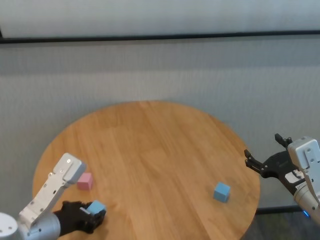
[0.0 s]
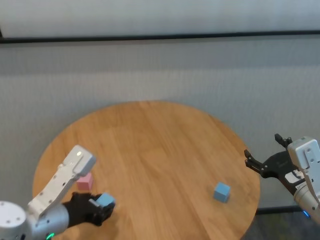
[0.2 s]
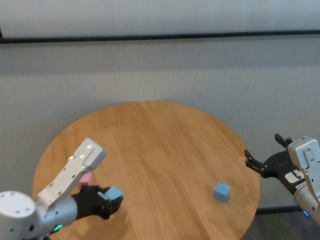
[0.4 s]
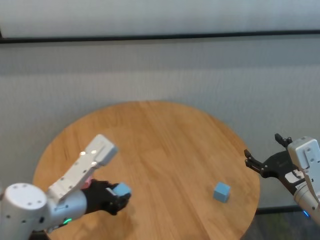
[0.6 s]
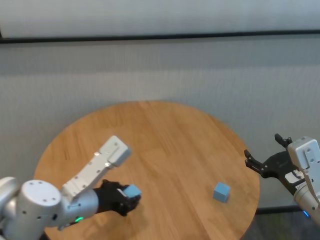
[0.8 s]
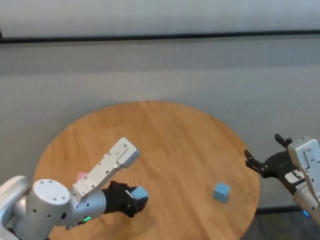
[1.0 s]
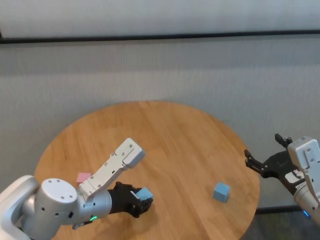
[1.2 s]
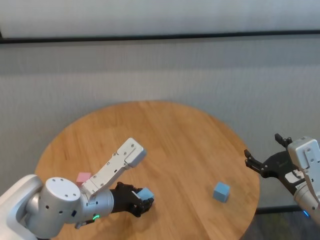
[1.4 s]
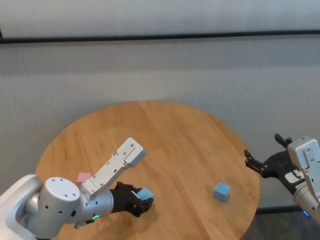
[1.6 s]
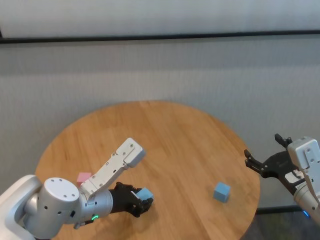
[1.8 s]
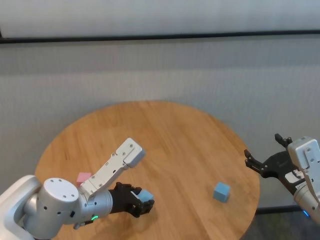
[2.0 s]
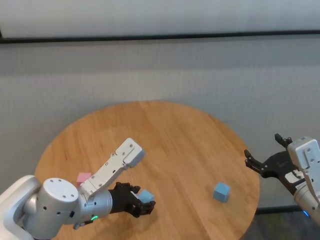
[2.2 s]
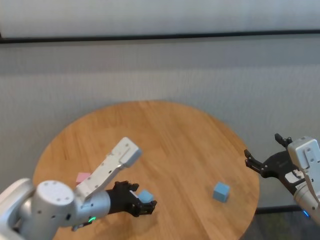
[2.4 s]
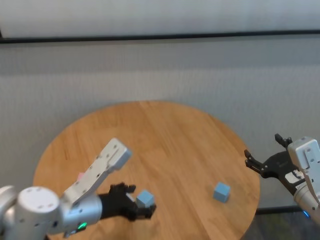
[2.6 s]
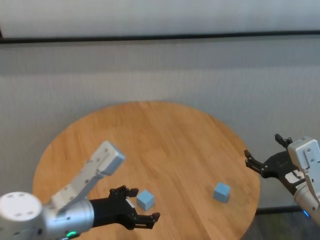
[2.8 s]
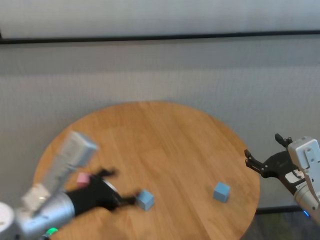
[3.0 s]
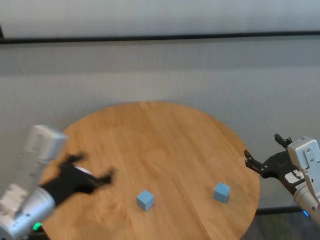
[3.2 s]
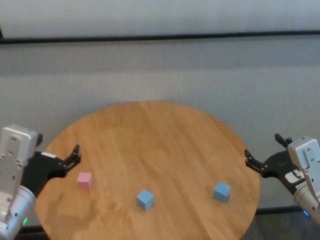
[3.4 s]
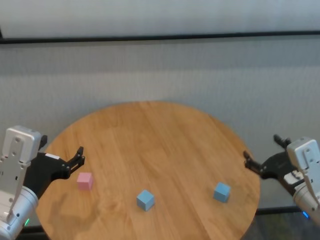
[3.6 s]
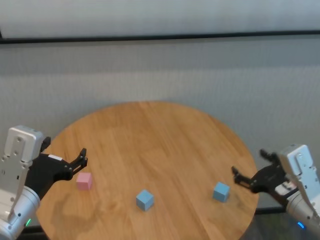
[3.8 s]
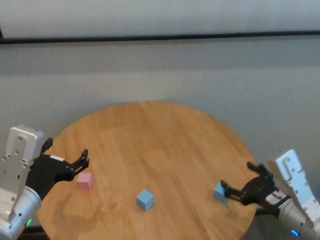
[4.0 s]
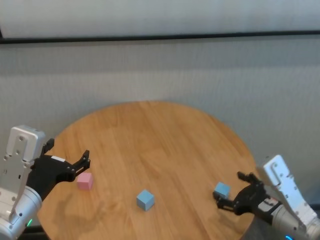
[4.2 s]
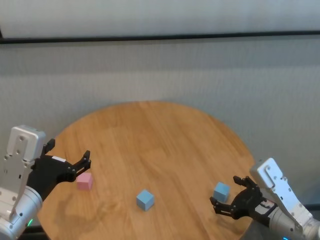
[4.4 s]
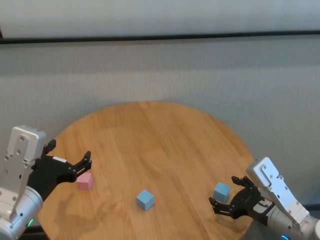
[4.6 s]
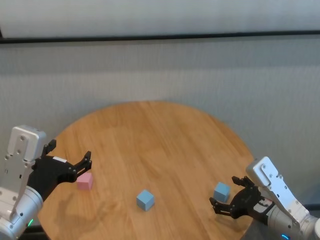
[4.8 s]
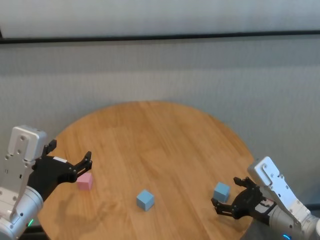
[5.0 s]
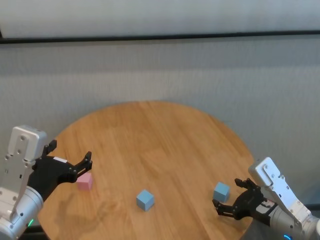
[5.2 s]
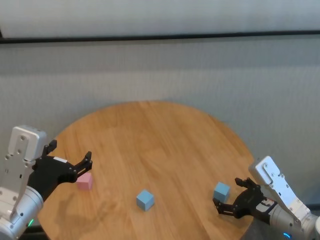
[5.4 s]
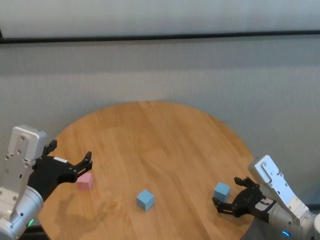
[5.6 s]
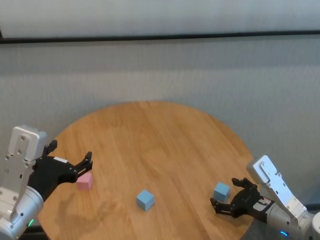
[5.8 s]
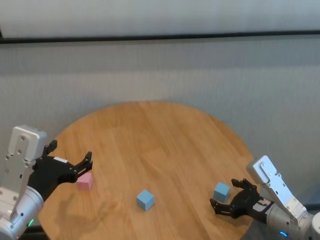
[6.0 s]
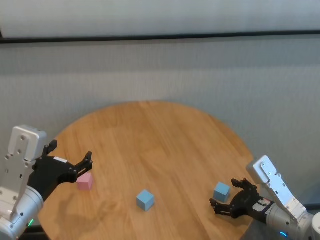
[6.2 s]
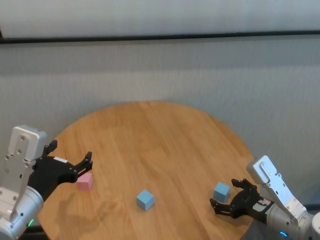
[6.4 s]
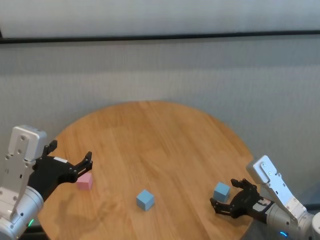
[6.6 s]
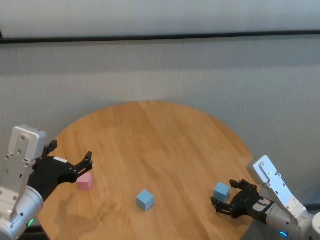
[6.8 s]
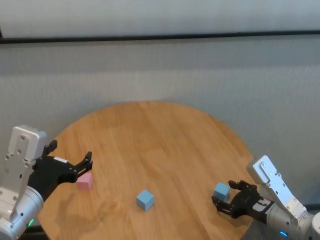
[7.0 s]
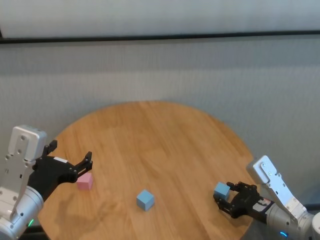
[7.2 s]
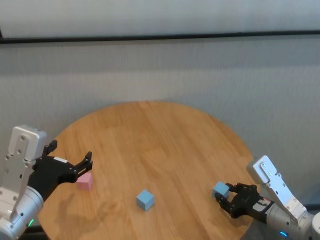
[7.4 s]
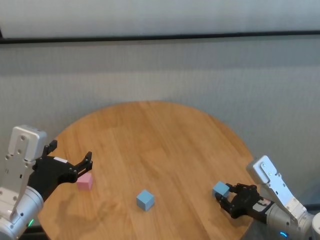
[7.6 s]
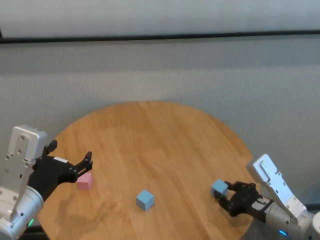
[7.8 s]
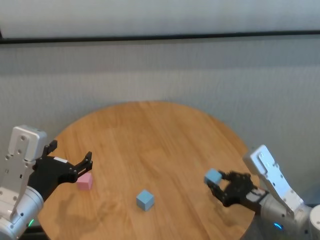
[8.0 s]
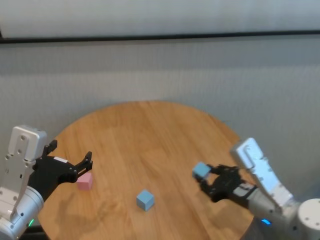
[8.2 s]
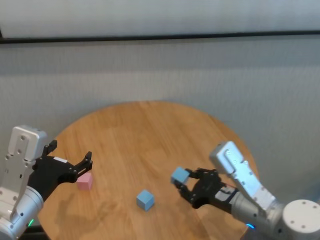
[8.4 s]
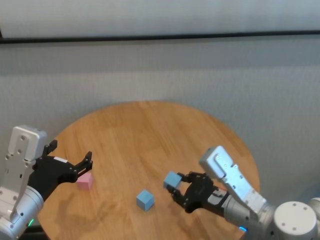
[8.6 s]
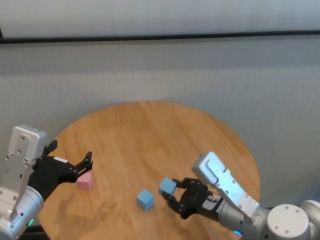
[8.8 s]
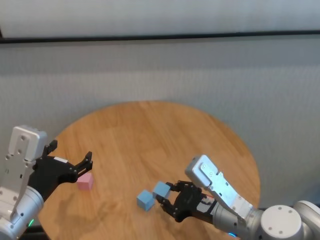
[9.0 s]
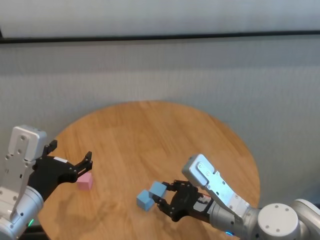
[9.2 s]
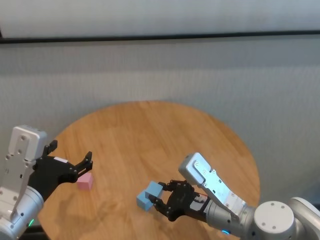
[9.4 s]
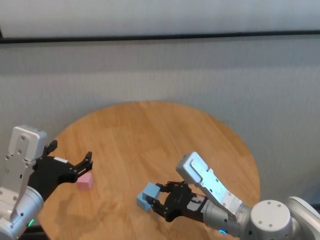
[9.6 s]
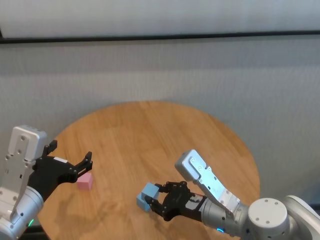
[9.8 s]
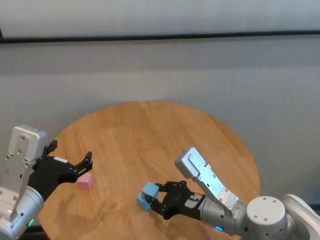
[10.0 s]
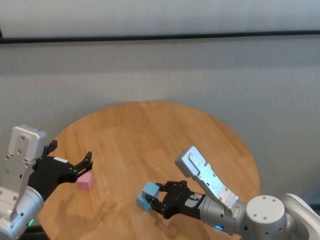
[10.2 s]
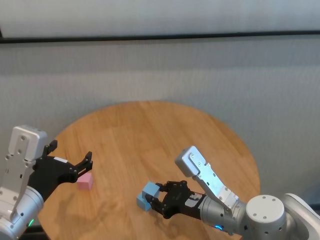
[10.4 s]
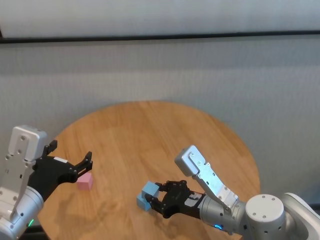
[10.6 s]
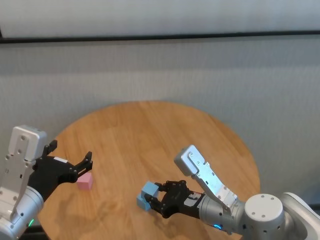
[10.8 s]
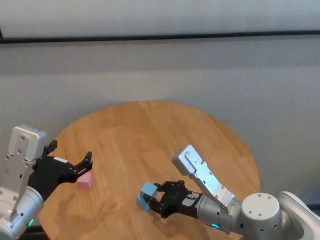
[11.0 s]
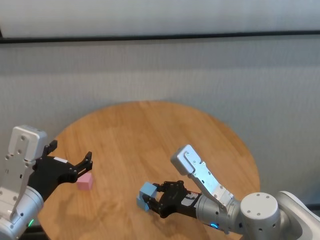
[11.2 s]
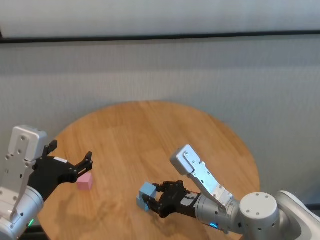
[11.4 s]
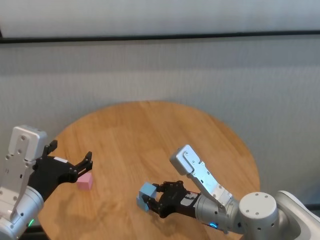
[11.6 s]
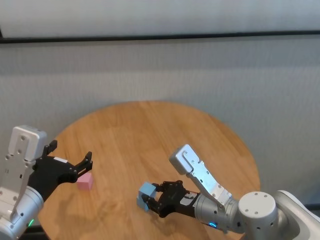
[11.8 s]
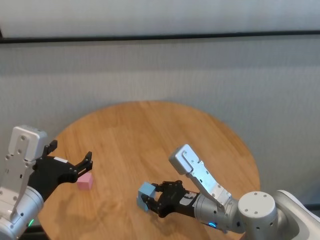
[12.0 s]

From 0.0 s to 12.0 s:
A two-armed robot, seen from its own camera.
Task of the whole recording: stack building blocks on the table.
Step, from 0.0 s to 2.2 s: Place the blue building block in the center of table with left gripper.
Step, from 2.4 s to 7.4 s: Grasp the blue building block with right gripper.

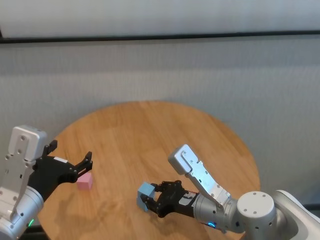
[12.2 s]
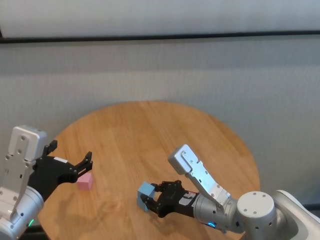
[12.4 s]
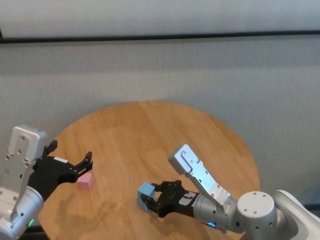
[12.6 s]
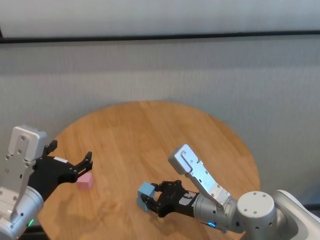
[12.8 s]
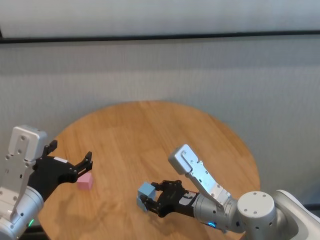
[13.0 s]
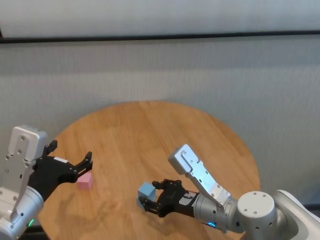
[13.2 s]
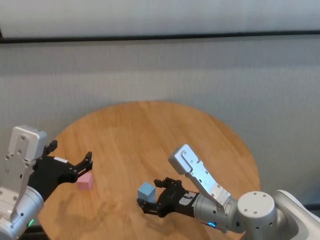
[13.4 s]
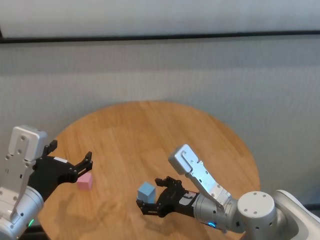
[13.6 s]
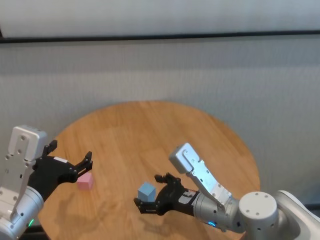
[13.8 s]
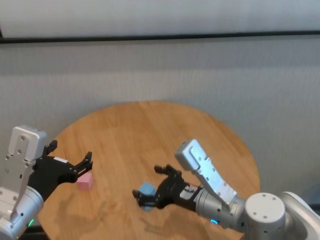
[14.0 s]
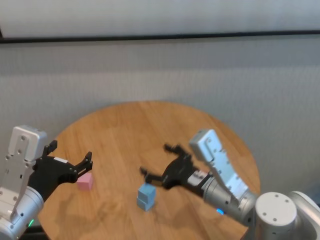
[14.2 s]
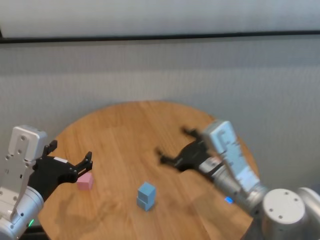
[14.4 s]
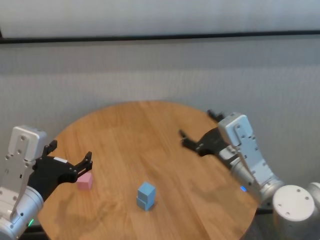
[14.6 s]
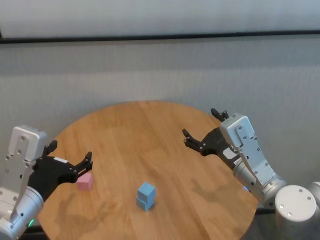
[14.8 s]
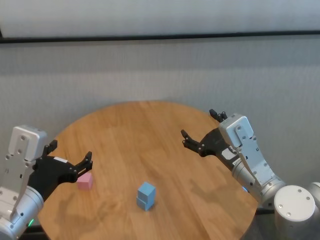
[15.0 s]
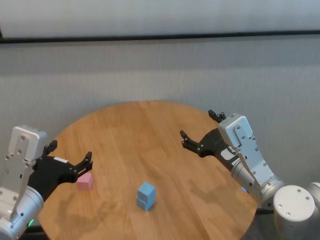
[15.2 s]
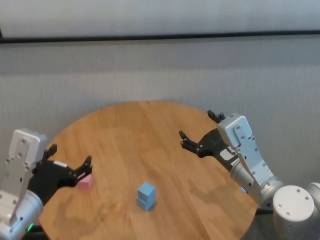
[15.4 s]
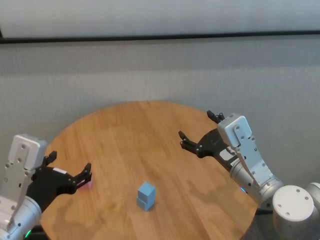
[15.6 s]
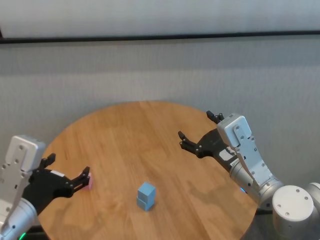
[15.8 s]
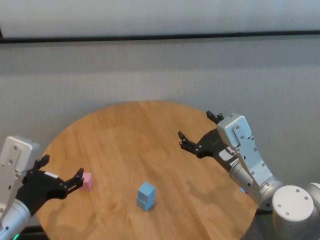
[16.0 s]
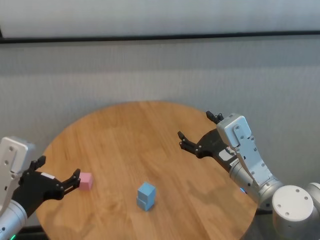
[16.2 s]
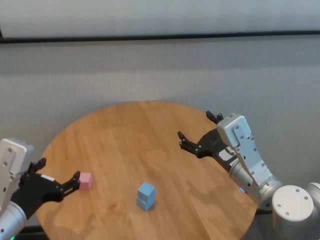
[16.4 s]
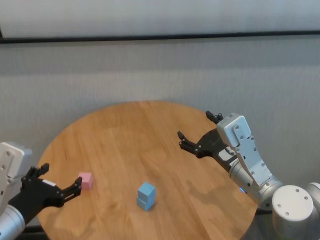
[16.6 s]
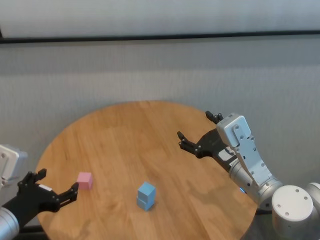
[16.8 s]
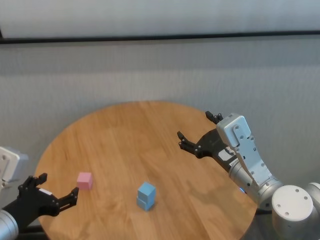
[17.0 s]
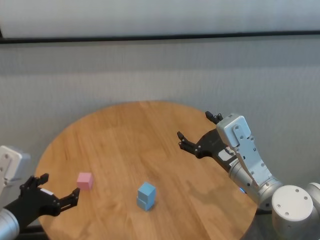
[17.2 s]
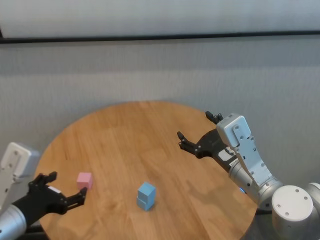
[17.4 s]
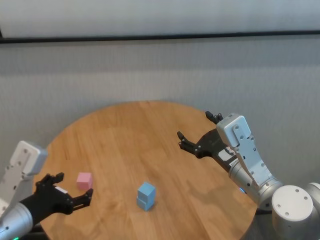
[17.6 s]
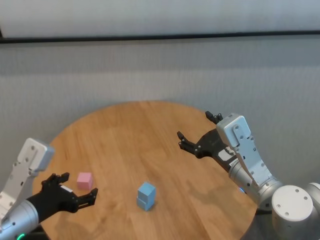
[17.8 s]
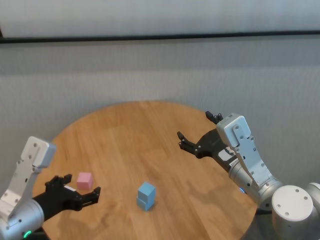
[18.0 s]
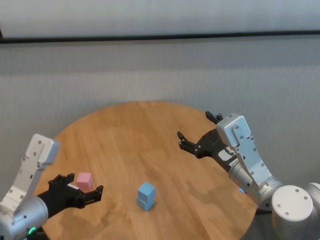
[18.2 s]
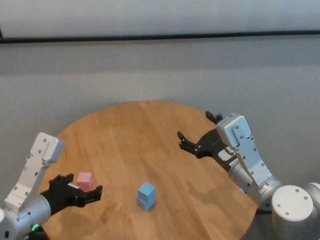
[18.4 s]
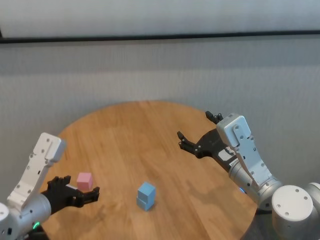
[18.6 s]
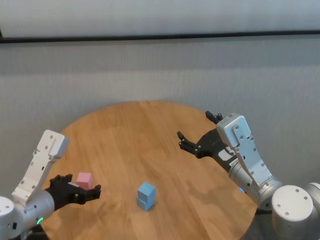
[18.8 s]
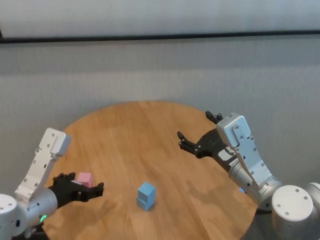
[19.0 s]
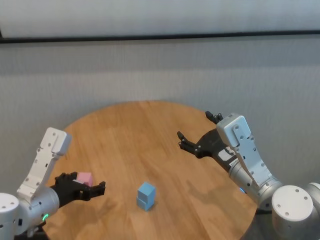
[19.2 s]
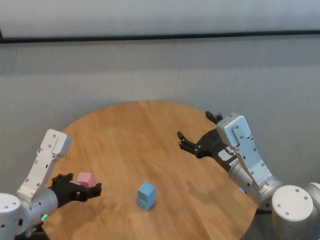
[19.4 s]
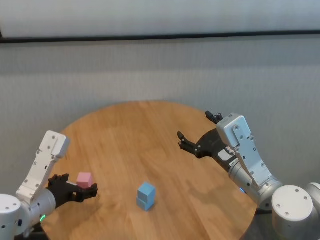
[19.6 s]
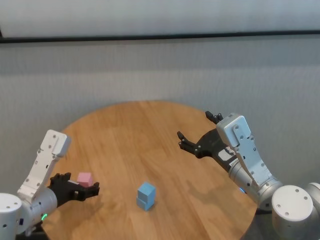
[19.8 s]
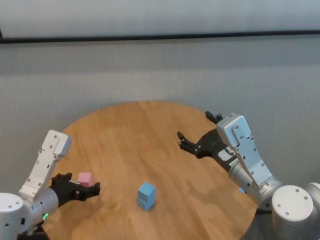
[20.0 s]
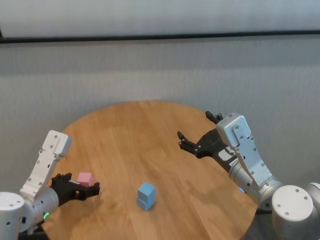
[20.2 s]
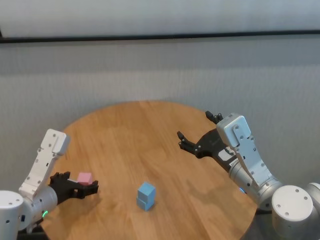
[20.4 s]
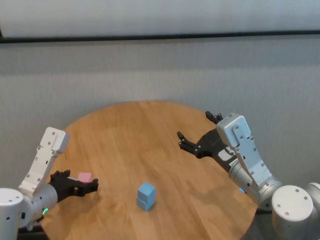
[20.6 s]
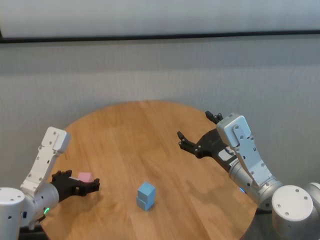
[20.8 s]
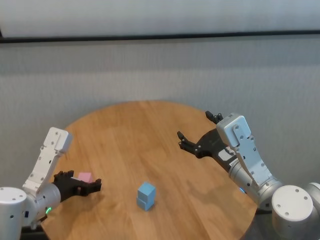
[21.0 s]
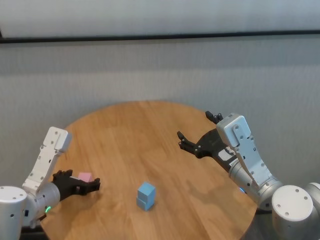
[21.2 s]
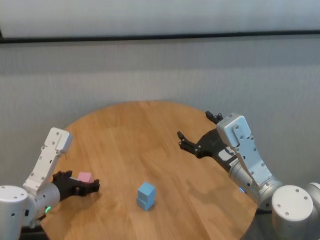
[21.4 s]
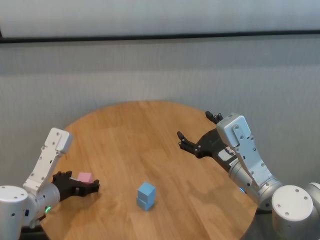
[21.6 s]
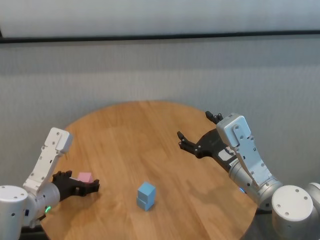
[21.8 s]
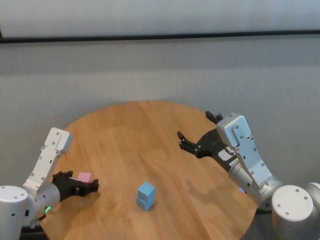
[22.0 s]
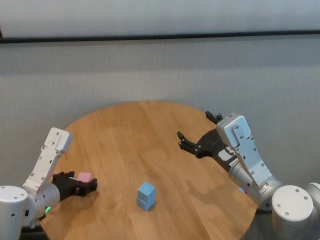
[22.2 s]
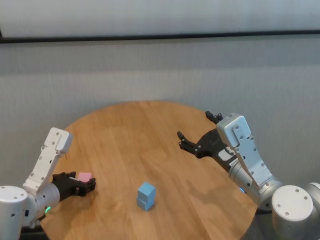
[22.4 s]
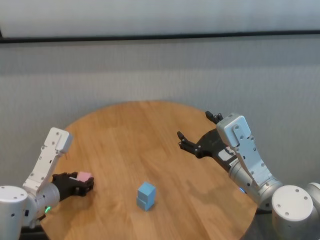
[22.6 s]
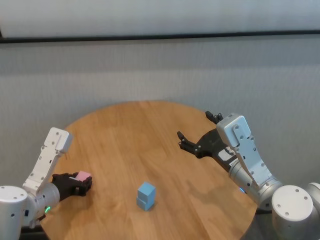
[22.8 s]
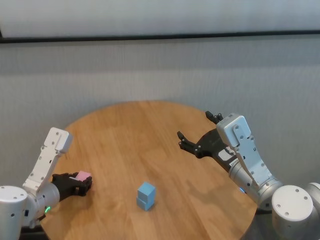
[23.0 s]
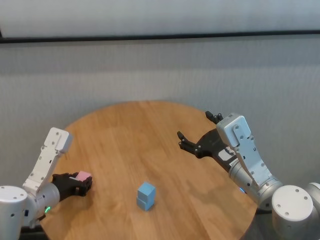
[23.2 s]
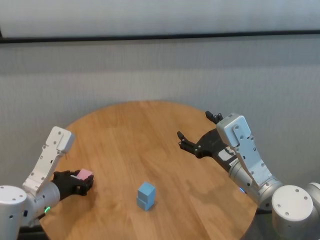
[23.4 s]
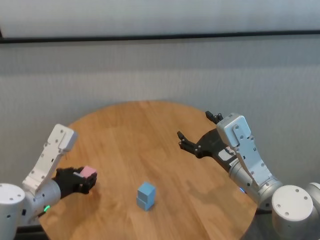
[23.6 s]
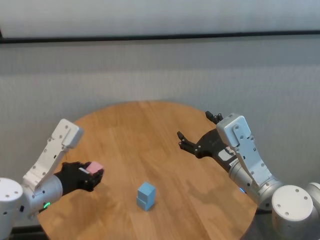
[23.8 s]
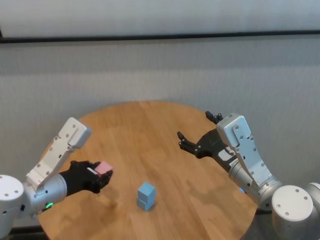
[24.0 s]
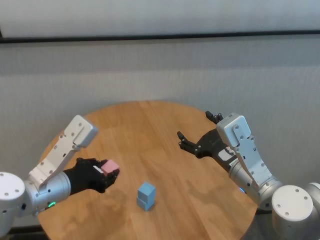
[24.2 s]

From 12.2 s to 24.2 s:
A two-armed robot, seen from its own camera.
Task of the whole recording: stack building blocks on the table.
Step, from 13.8 s to 23.0 s: Grasp the pink building block with left gripper.
